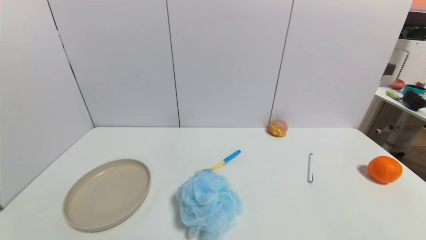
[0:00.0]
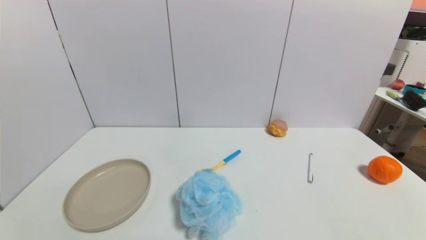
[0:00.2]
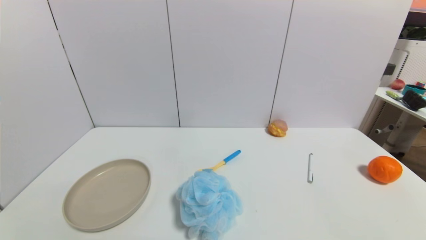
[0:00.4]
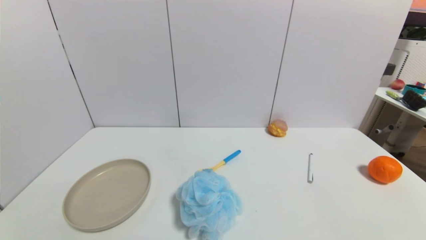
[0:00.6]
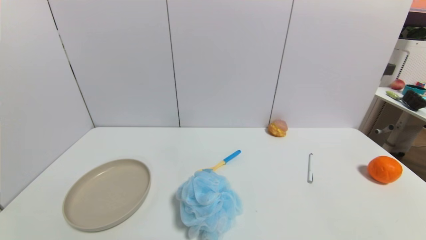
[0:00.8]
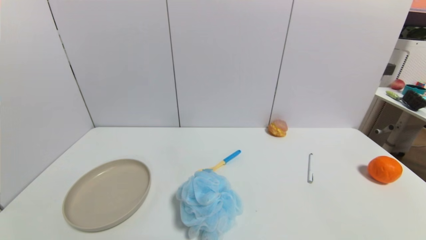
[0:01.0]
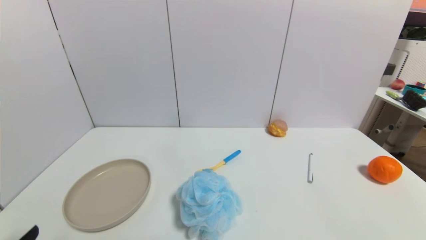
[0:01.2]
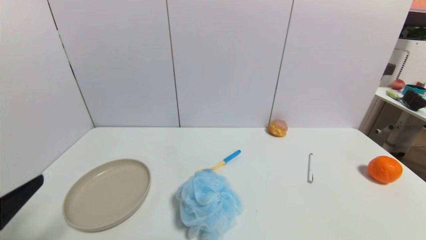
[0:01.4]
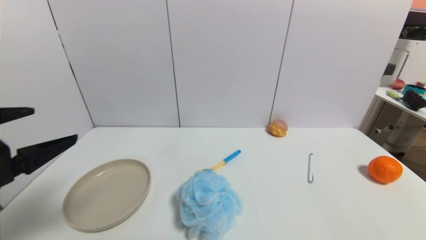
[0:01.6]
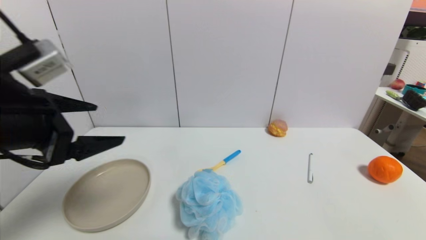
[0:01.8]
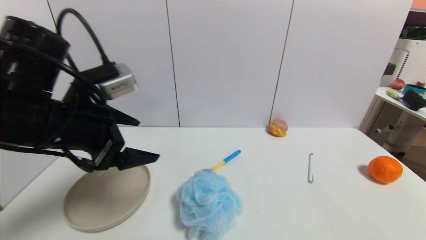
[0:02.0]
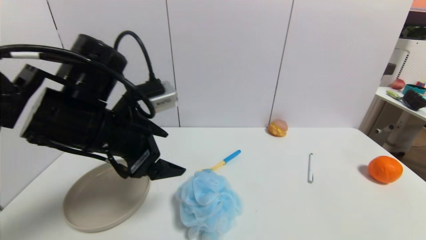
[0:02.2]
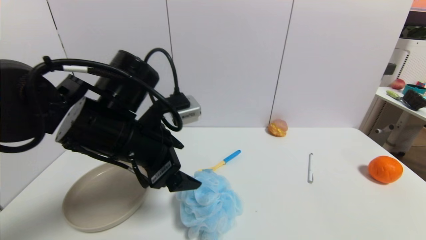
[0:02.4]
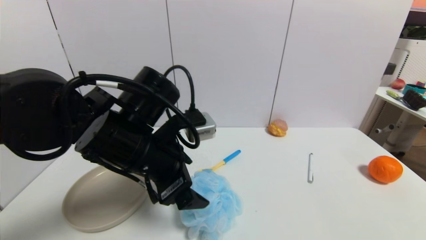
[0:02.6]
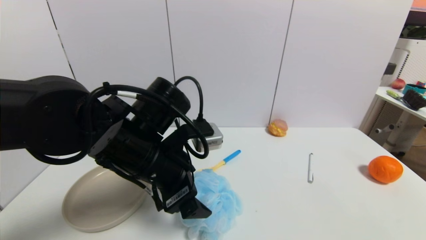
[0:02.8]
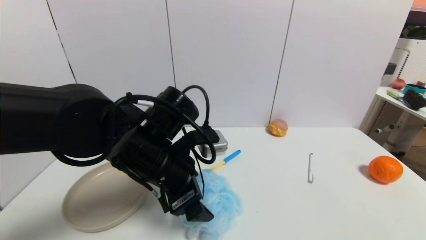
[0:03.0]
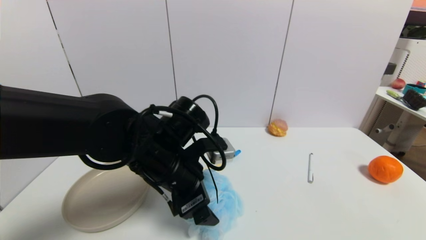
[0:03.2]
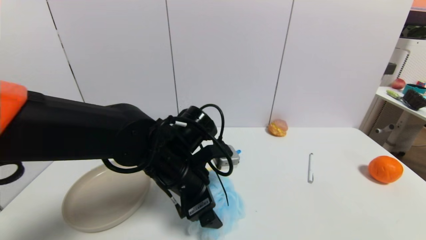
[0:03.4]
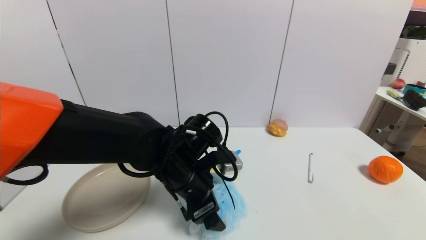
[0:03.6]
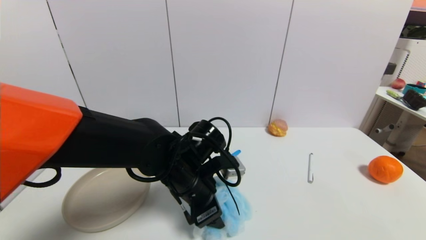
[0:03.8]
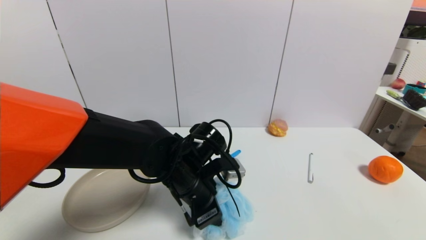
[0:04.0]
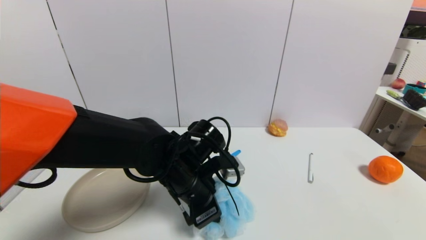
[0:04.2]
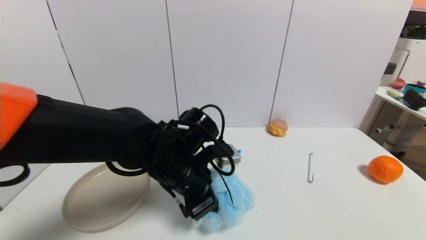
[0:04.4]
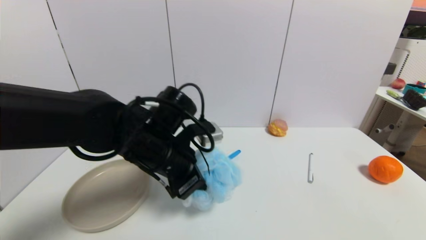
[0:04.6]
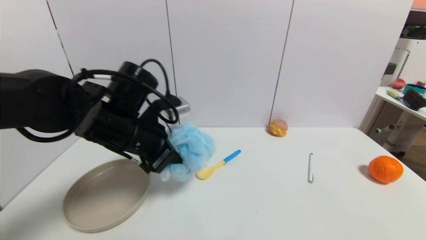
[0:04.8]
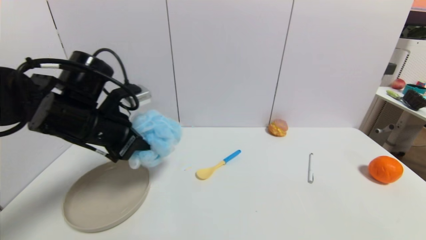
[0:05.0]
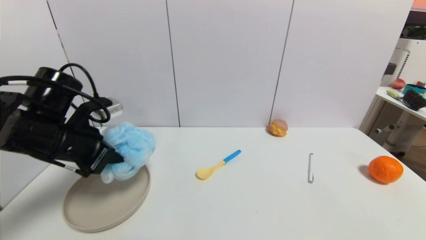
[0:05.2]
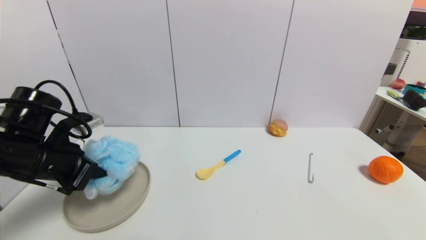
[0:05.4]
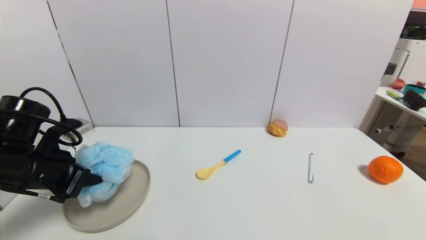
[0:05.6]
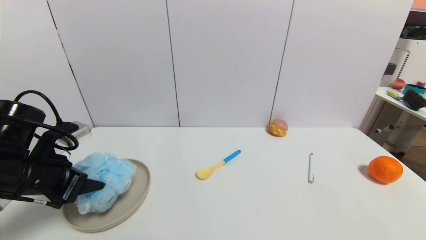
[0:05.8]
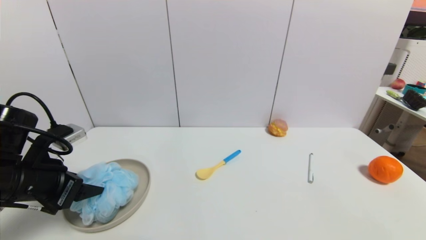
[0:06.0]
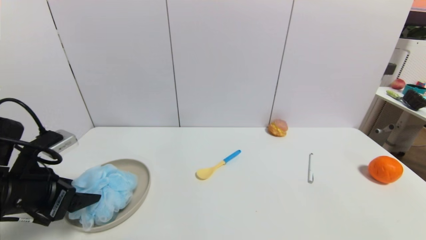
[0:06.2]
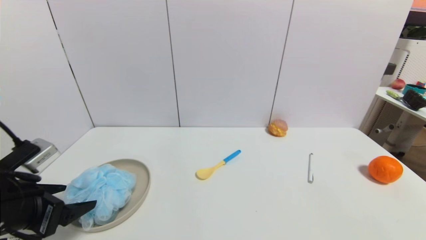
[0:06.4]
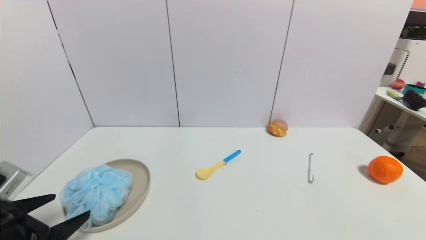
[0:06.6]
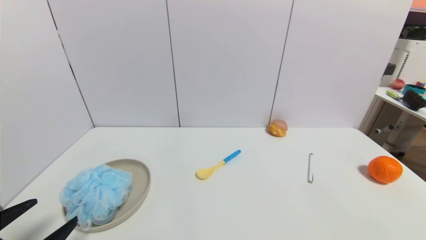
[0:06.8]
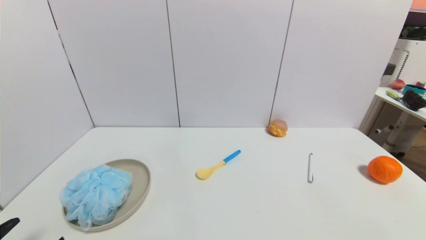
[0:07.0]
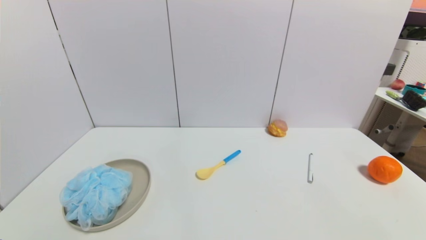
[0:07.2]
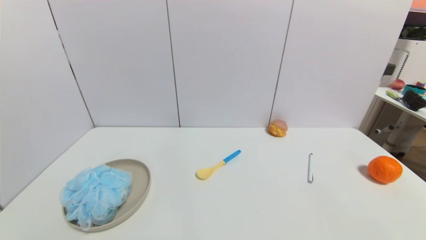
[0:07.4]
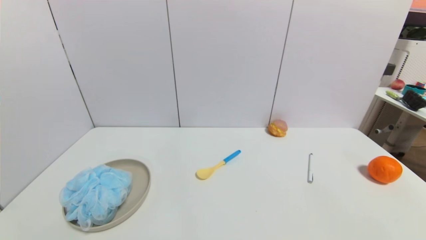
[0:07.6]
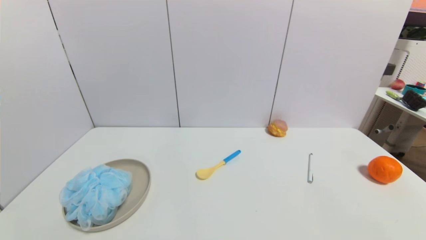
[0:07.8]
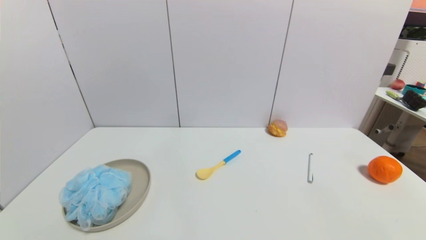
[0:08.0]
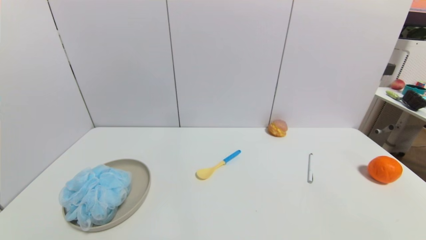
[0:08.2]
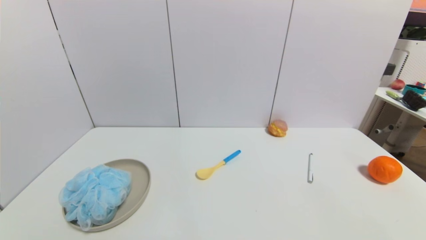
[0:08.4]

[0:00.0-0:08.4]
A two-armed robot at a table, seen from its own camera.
Task of the whole recording: use a gripper to pick the target object and place on the brown plate.
Step, 0:00.0 to 0:04.0: Grasp the shower sphere with the left gripper.
Step, 0:04.2 to 0:06.4: Place the shower sphere on the brown plate with the left gripper.
0:00.0 to 0:01.4: The left gripper heads upward and forward, covering roughly 20 cm.
0:01.4 to 0:02.8: The left gripper heads to the right and forward, covering about 25 cm.
0:02.8 to 0:04.2: The left gripper heads downward, covering some 5 cm, and closes up.
0:04.2 to 0:05.6: The left gripper goes approximately 25 cm to the left.
0:05.6 to 0:07.0: The left gripper moves backward, about 20 cm, and opens.

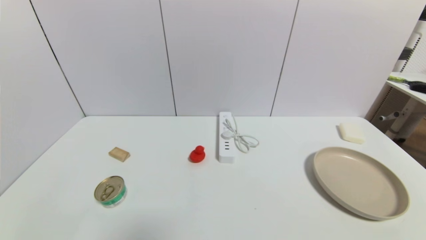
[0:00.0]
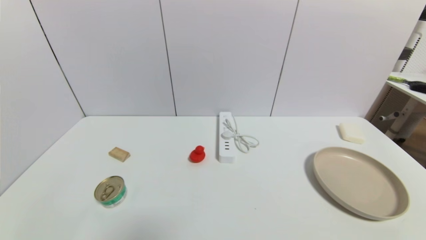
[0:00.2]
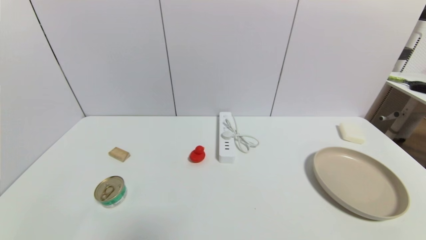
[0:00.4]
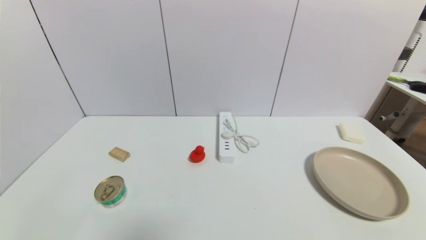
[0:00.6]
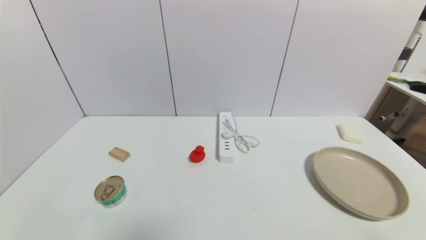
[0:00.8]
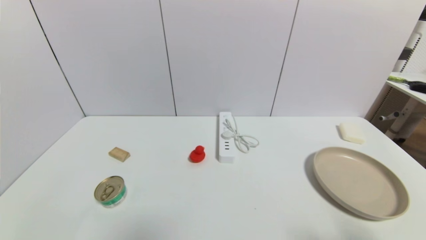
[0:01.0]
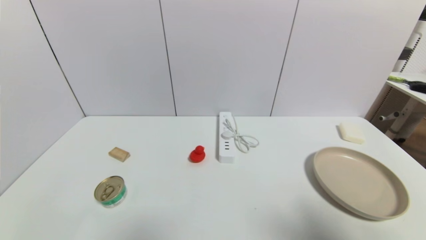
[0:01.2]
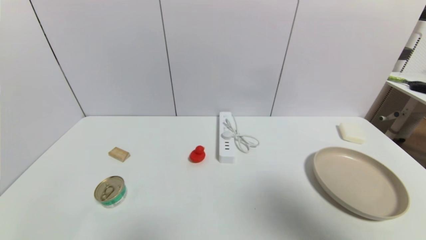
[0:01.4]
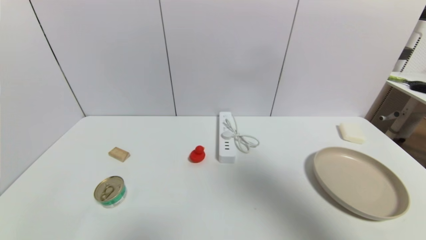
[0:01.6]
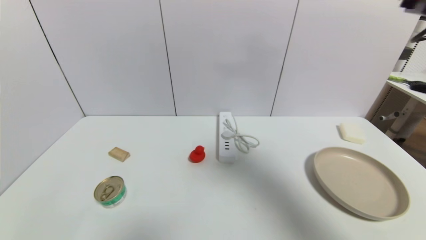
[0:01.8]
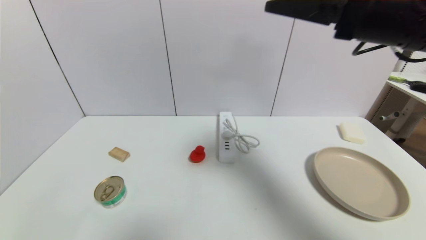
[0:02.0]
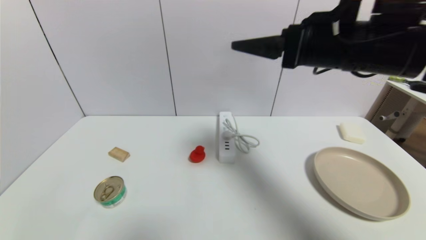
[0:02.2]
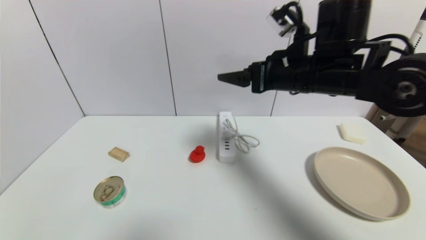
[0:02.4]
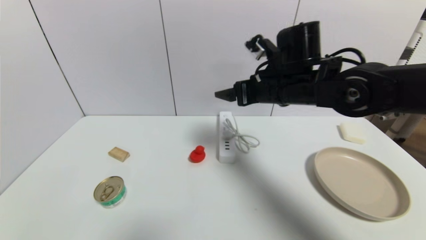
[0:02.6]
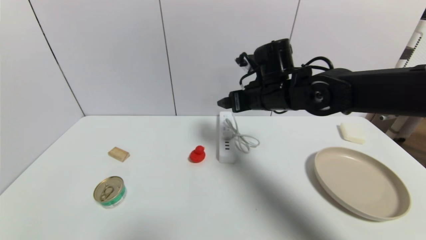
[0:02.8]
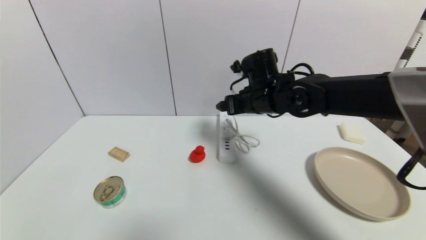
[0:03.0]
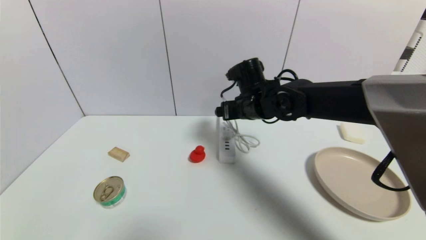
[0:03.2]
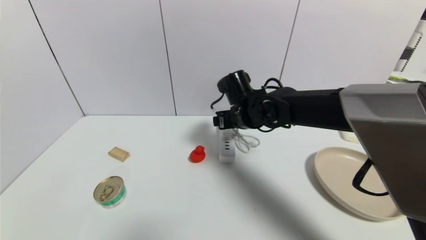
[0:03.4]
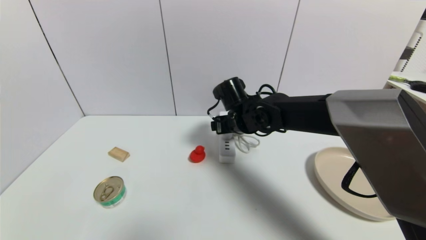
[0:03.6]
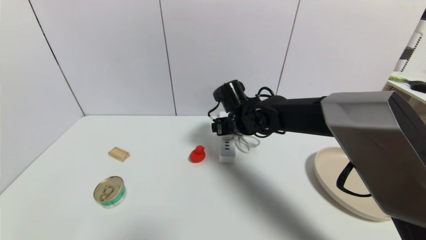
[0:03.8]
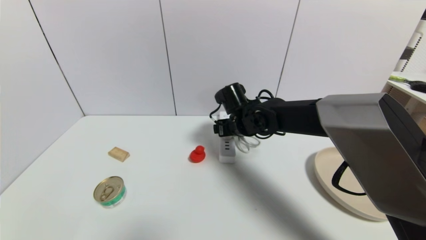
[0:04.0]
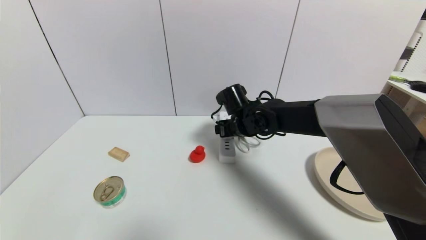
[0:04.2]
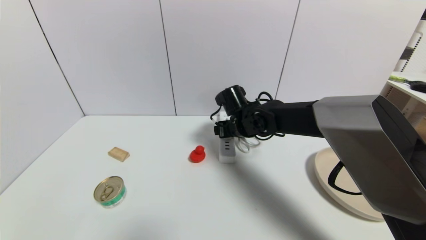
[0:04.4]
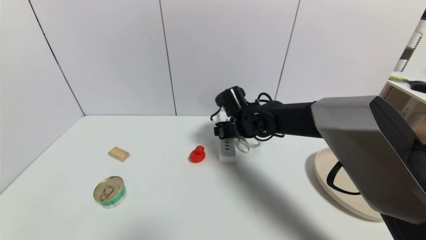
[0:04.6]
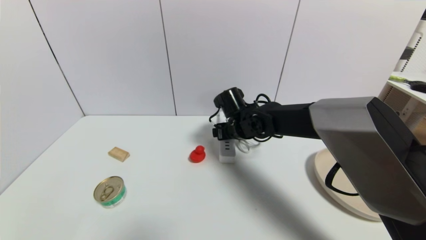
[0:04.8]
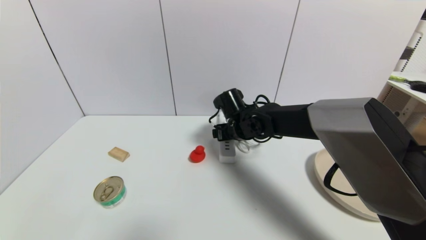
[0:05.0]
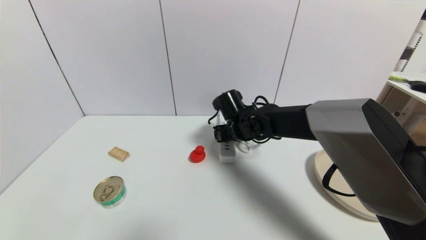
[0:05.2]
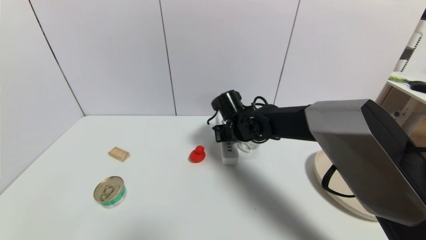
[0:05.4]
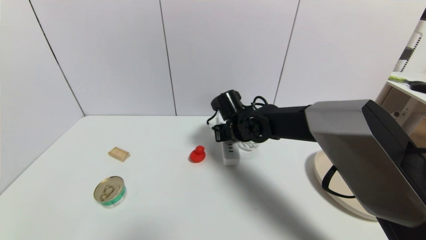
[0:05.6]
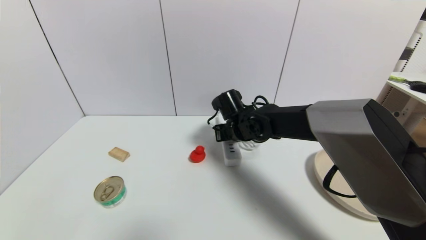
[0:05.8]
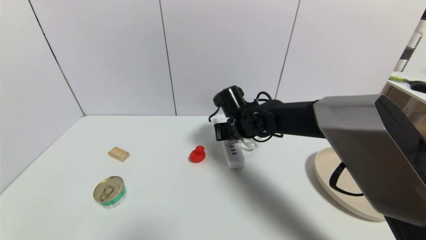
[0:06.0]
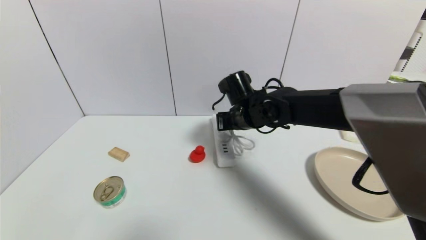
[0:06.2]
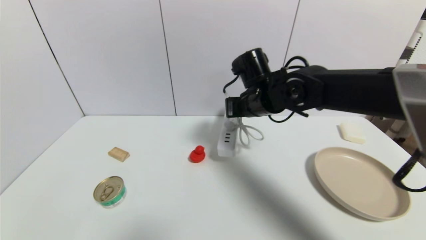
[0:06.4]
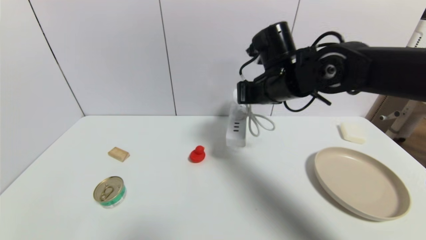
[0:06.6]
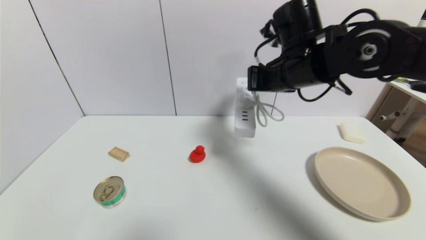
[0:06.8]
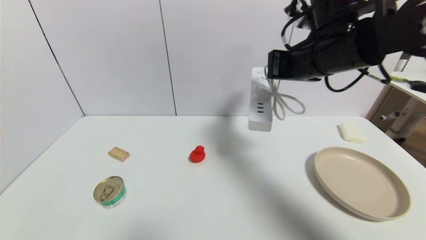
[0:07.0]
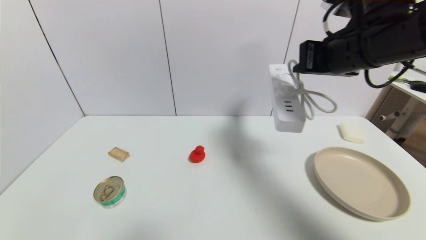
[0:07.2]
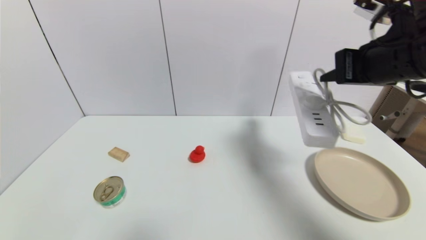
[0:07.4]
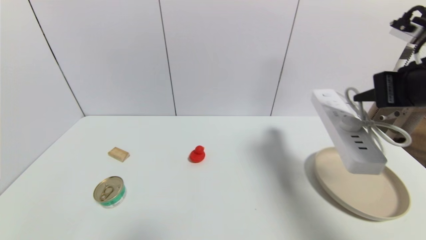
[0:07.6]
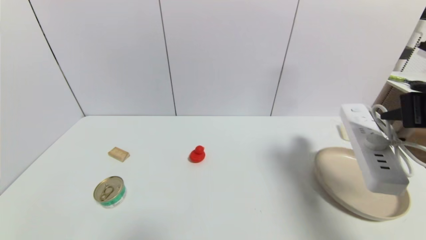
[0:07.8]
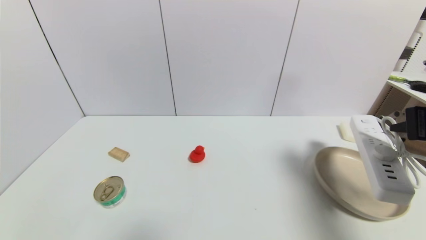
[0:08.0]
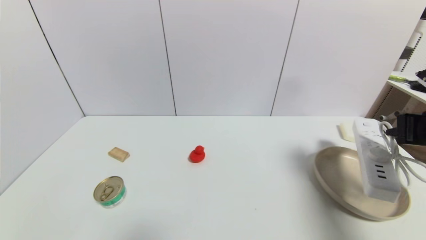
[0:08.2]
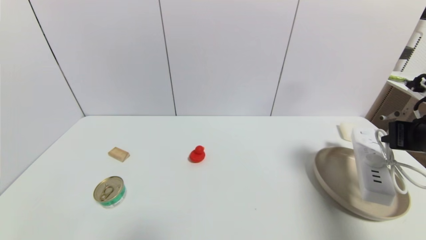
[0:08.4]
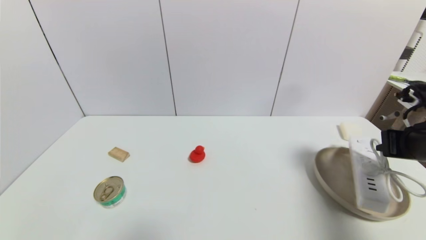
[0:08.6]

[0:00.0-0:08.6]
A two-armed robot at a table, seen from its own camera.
Task of the whole recording: use a gripper to pick the target object and place on the brown plate.
Step, 0:00.0 to 0:06.2: Grasp the plugboard with the right gripper.
0:00.0 to 0:01.4: The right gripper goes about 30 cm upward.
0:01.4 to 0:02.8: The right gripper shifts some 35 cm forward, to the left and downward.
0:02.8 to 0:04.4: The right gripper travels downward by roughly 10 cm.
0:04.4 to 0:05.8: The right gripper closes up.
0:05.8 to 0:07.2: The right gripper moves upward, to the right and backward, approximately 30 cm, and closes up.
0:07.2 to 0:08.6: The right gripper is displaced to the right and downward by approximately 20 cm.
